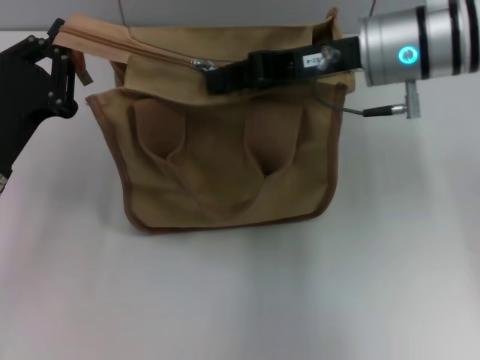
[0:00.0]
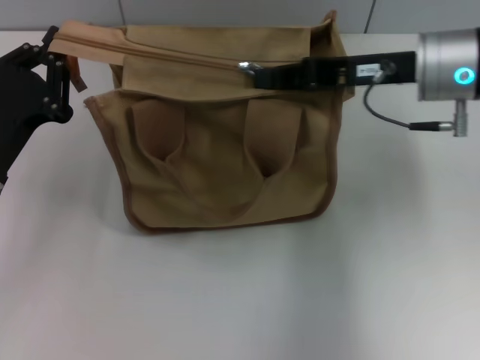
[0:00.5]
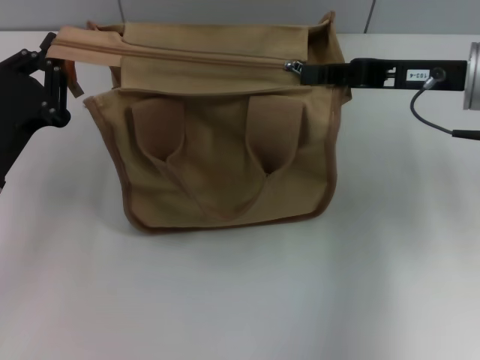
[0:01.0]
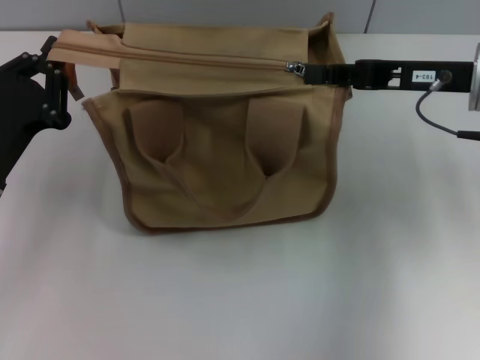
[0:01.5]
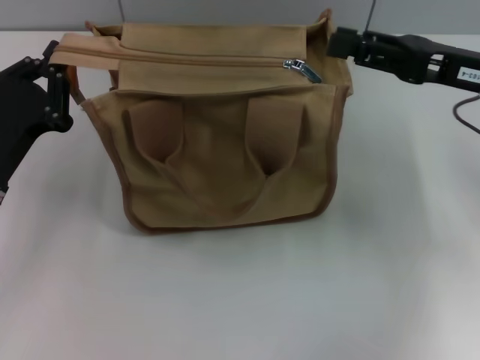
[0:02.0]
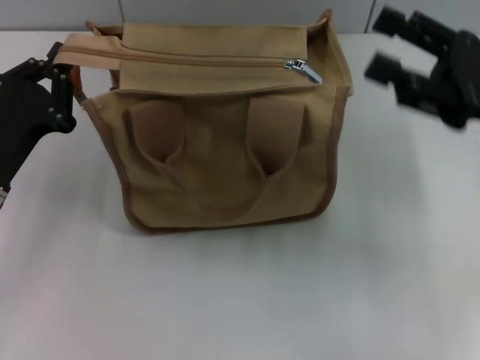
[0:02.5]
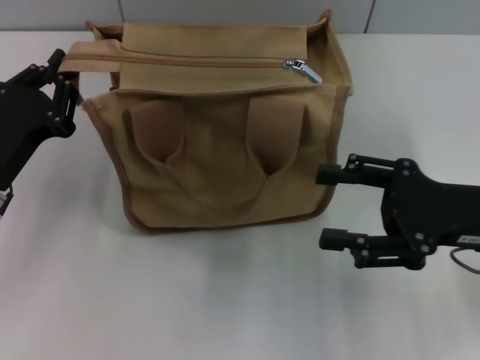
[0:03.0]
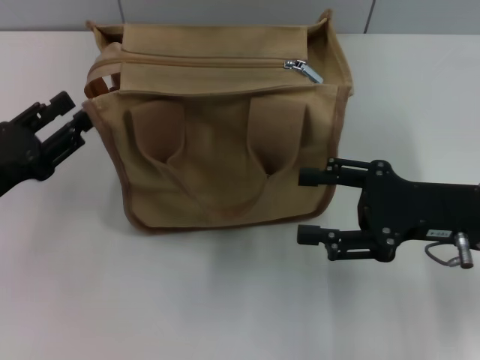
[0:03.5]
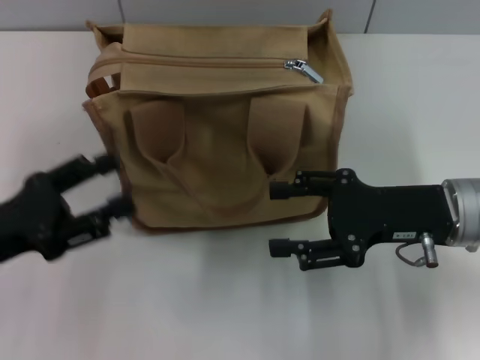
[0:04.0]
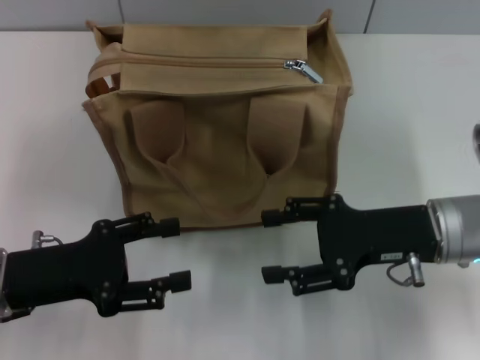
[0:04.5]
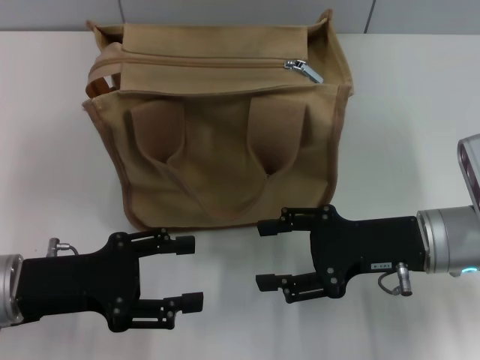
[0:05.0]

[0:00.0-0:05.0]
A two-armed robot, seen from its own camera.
0:00.0 to 0:02.5: The right gripper shifts roughly 15 cm to the right and backward, and opens up.
0:02.5 to 0:05.0: The right gripper moves downward and to the left, about 10 cm. Meanwhile the left gripper opens.

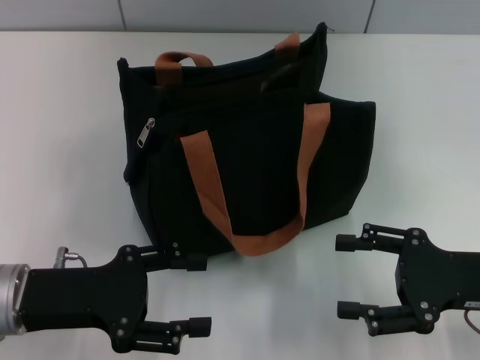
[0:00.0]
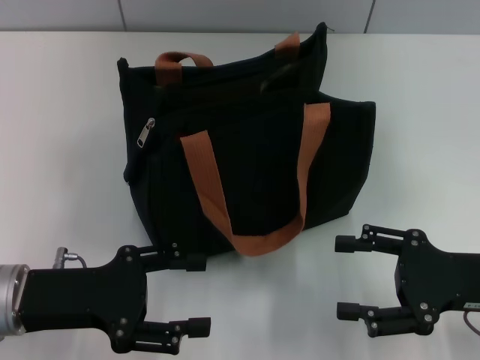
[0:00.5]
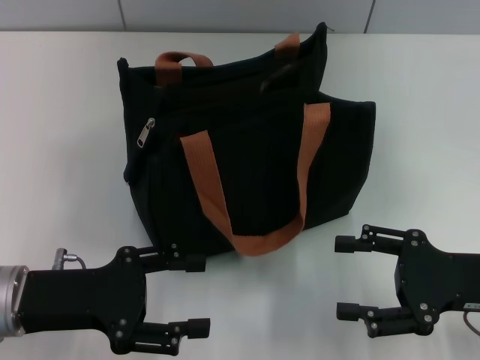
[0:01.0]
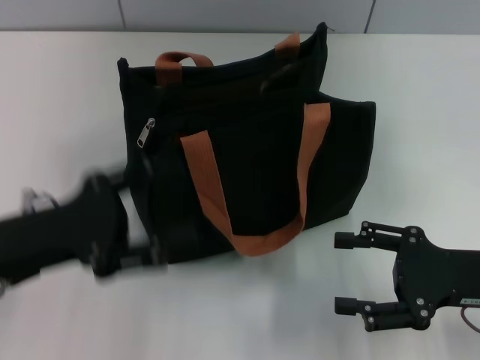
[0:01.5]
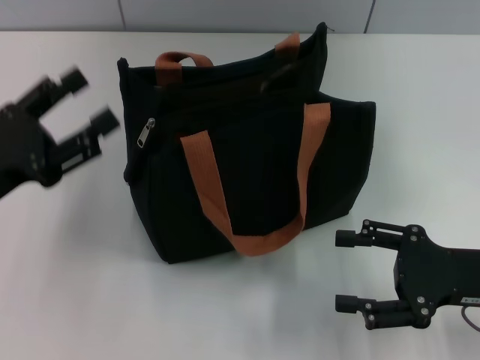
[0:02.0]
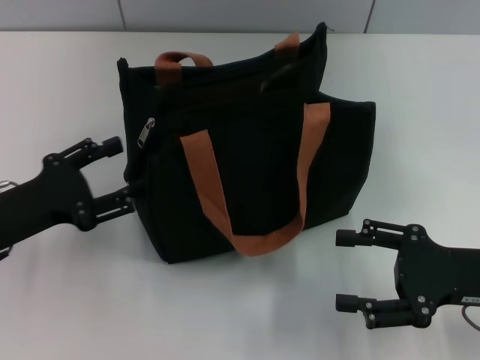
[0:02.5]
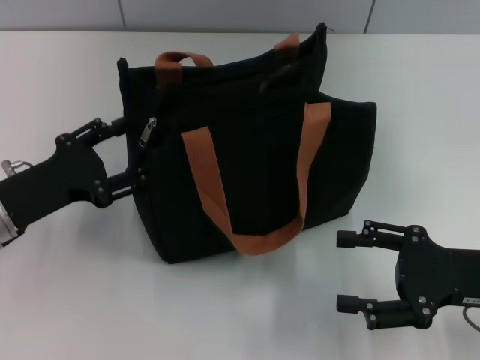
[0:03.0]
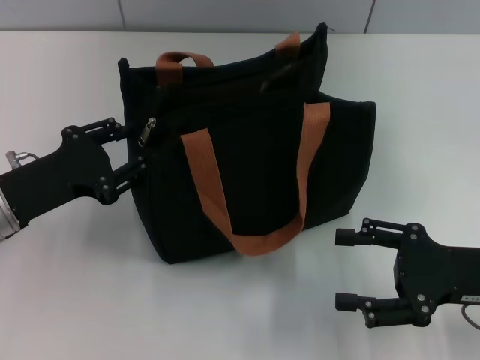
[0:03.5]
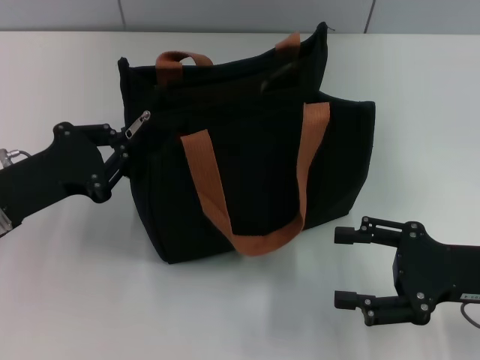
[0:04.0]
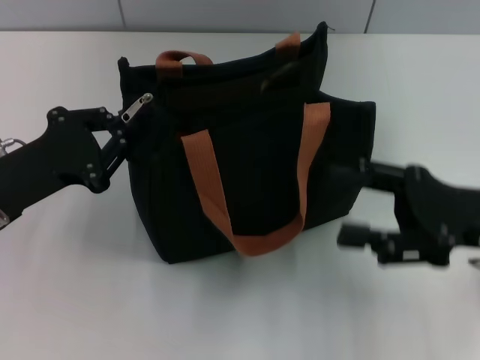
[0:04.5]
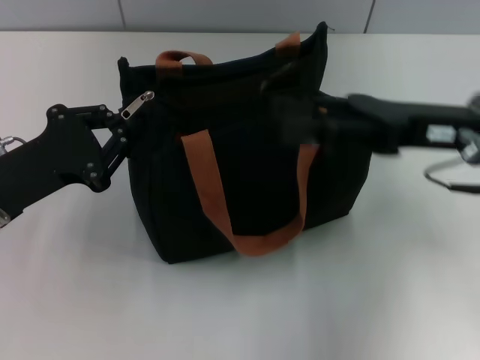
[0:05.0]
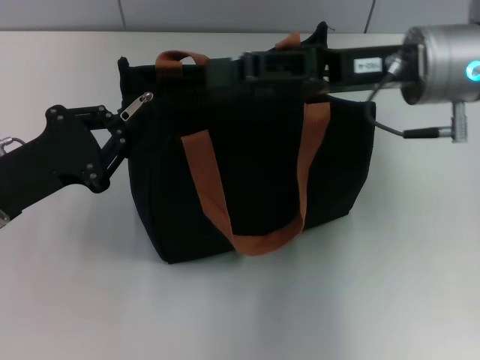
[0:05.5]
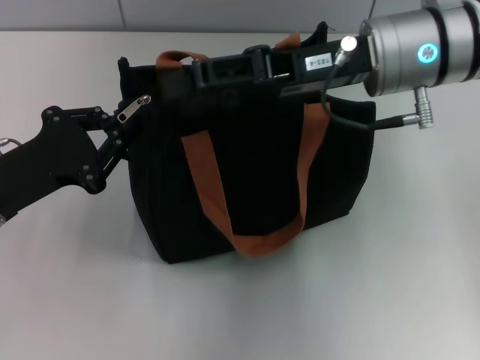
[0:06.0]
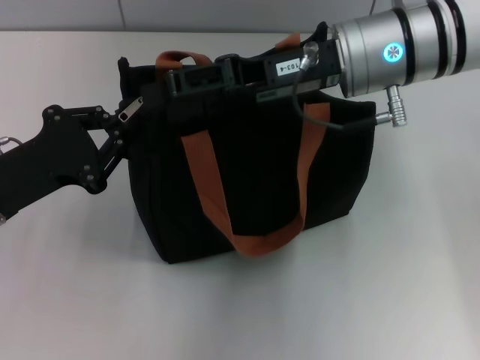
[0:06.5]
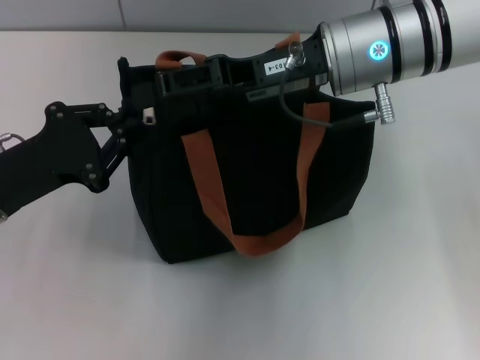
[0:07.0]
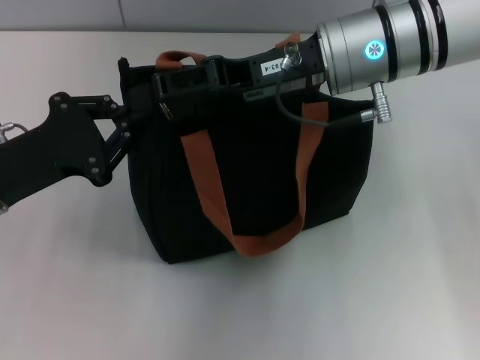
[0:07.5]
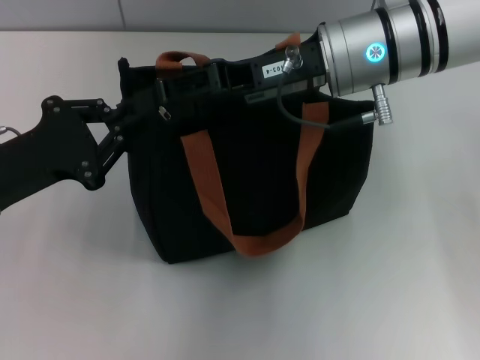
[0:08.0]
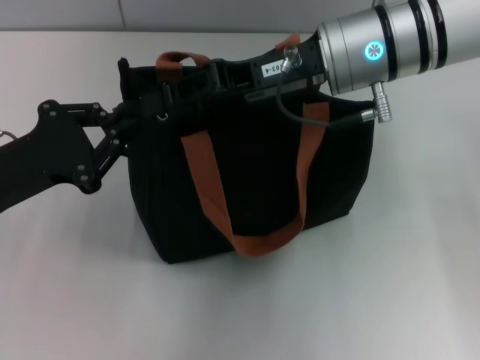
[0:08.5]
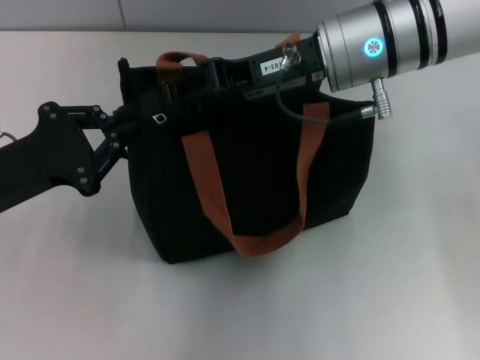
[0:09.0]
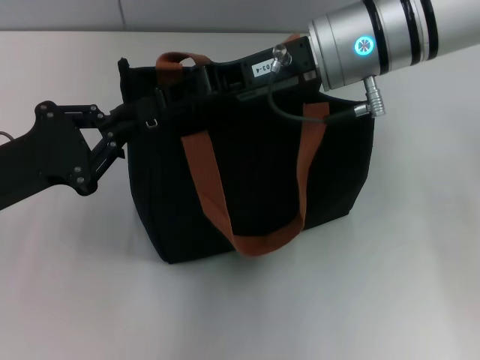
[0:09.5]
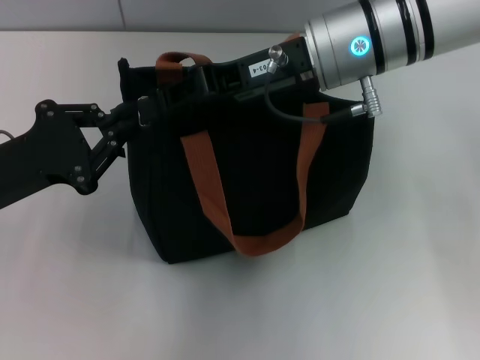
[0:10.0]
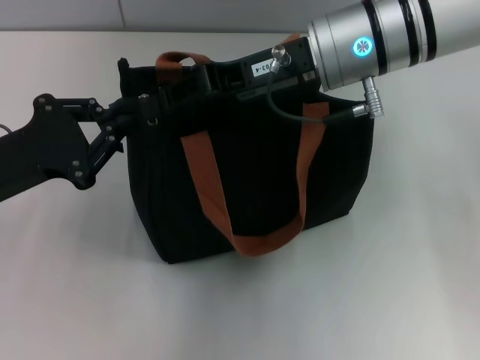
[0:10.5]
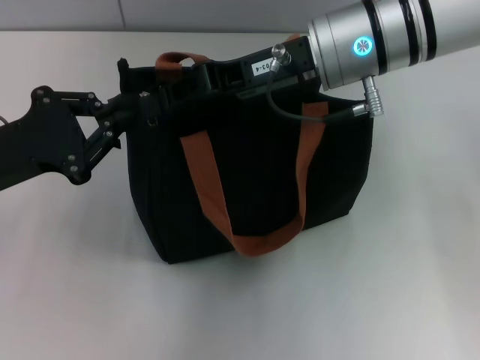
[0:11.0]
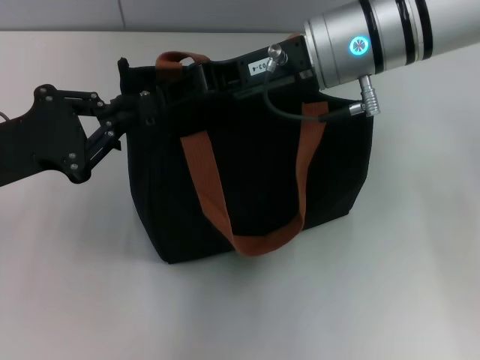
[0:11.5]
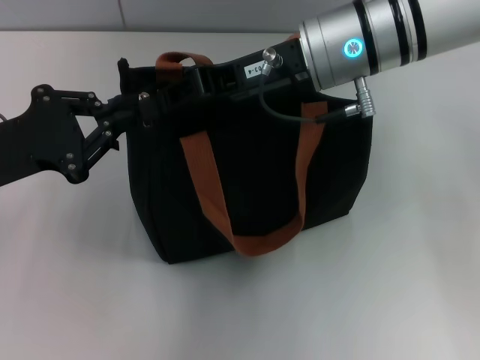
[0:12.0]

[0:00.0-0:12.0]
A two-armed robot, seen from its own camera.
0:00.0 to 0:02.0: The left gripper changes place by about 5 cm.
0:02.0 to 0:04.0: The left gripper closes its fingers.
0:04.0 to 0:06.0: The right gripper heads to the left, forward and upward, covering roughly 25 cm.
0:06.0 to 0:08.0: The grippers make only small movements.
0:08.0 to 0:10.0: The right gripper closes its fingers.
0:10.0 to 0:12.0: The grippers make only small movements.

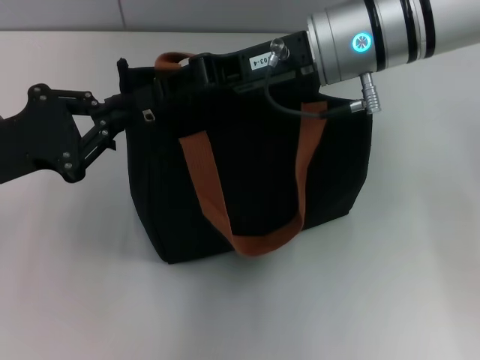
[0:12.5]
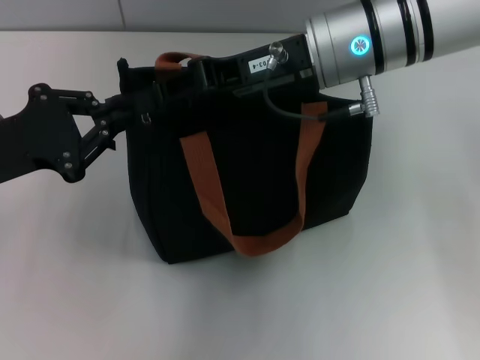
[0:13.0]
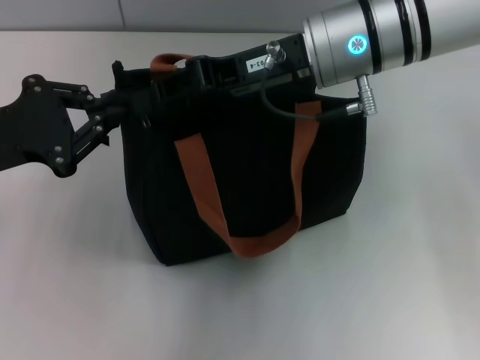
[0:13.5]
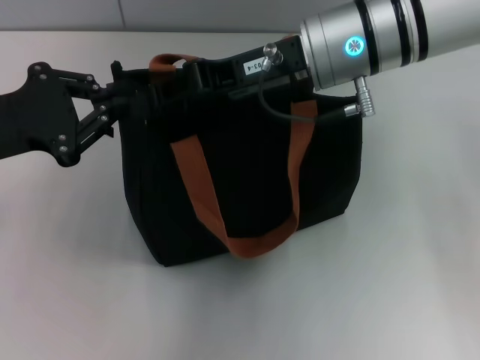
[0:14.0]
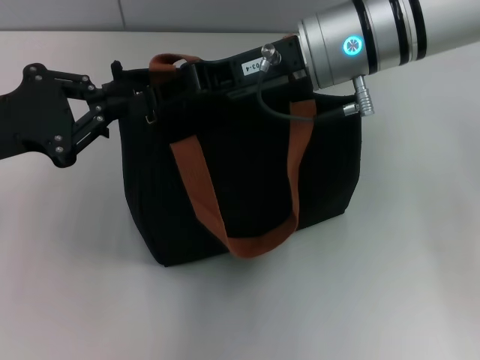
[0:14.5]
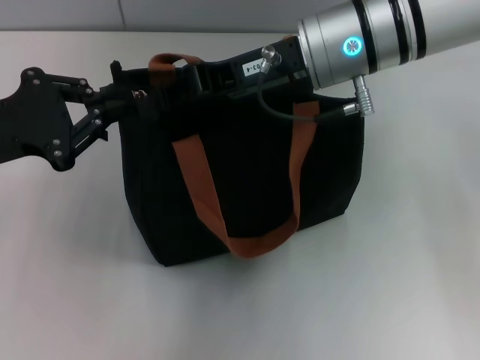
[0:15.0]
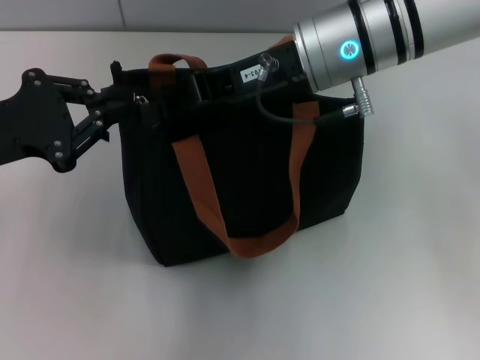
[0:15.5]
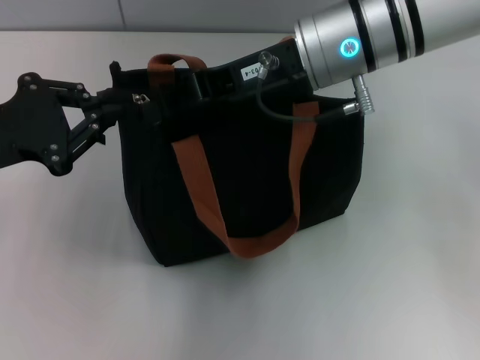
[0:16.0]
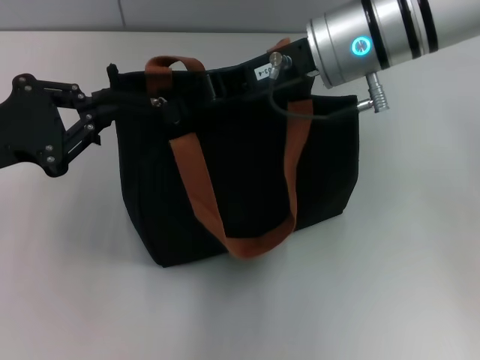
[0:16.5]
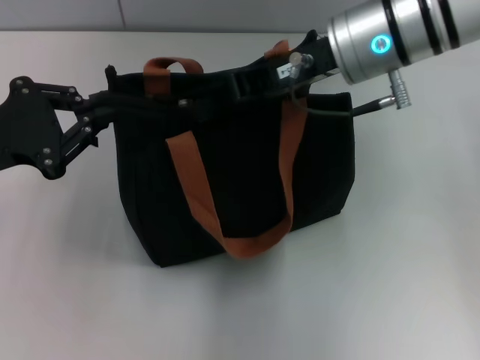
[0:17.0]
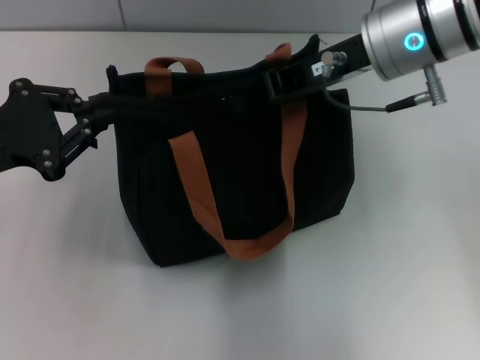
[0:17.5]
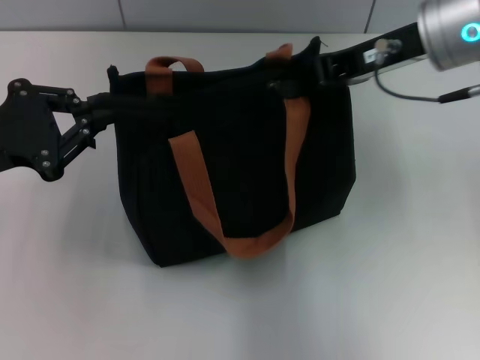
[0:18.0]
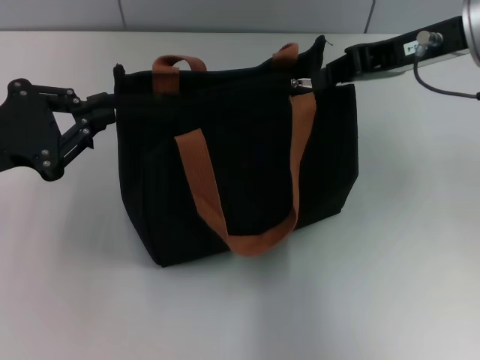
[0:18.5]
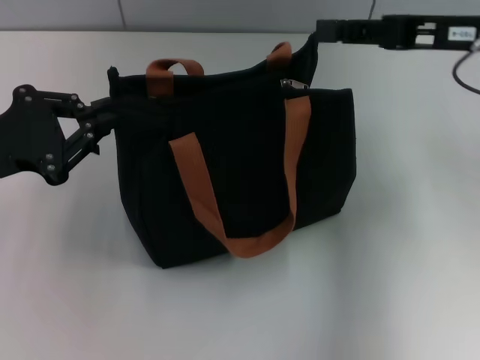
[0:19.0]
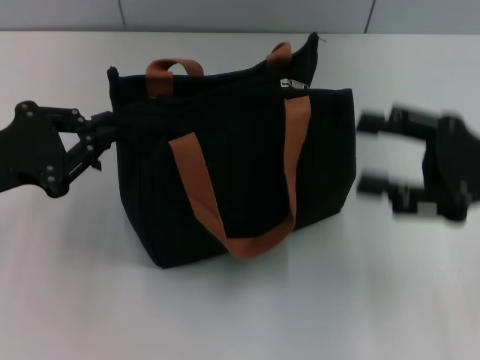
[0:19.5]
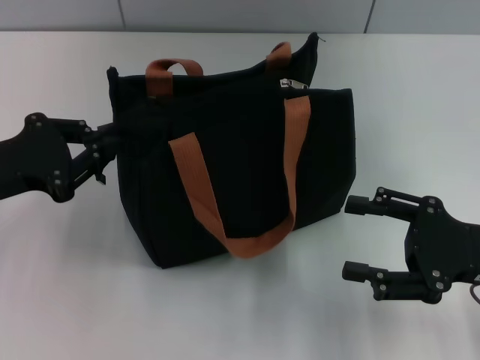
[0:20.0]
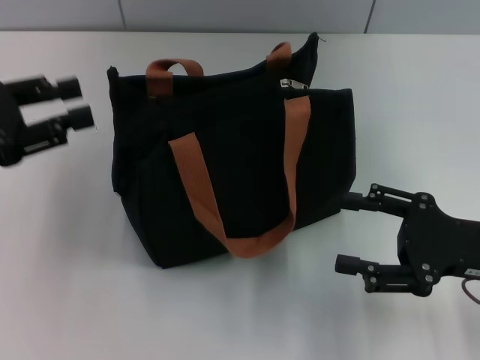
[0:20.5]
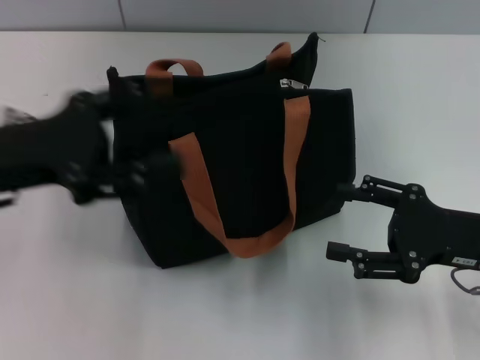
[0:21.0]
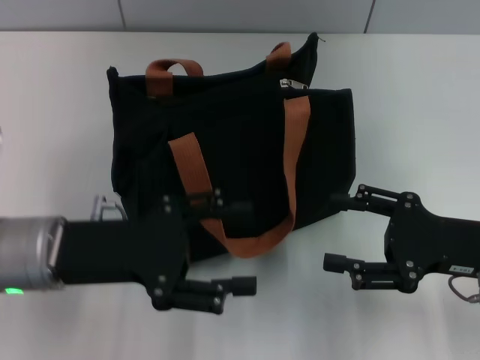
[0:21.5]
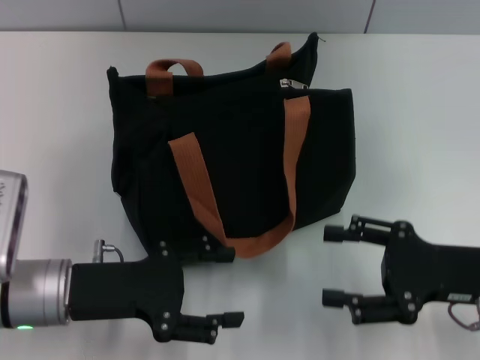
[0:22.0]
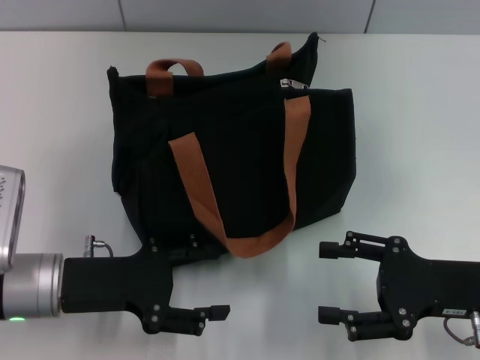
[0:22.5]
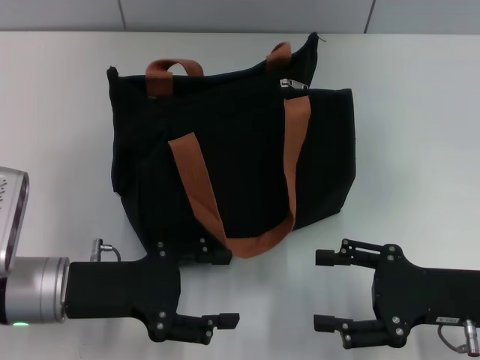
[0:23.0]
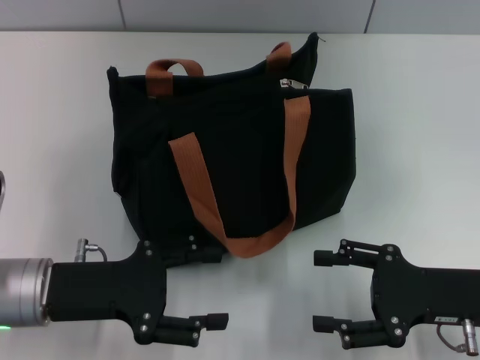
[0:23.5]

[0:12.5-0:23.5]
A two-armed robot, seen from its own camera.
Step, 0:12.5 to 0:18.5: Pull up the zipper with your right hand.
0:12.5 to 0:16.0: The grippers stay close to where they were, moving slightly.
0:16.0 to 0:18.0: The right gripper moves to the right, approximately 10 cm.
0:18.0 to 0:20.0: The right gripper moves downward, backward and to the right, about 25 cm, and opens up.
0:20.0 to 0:21.5: The left gripper heads to the right, covering some 10 cm, and opens.
